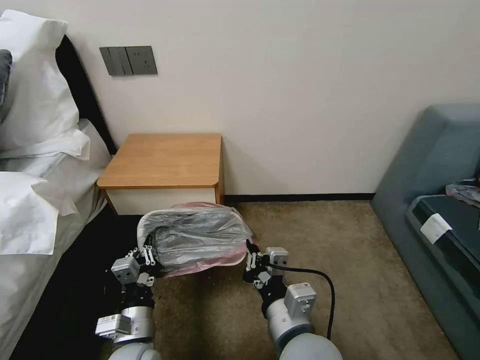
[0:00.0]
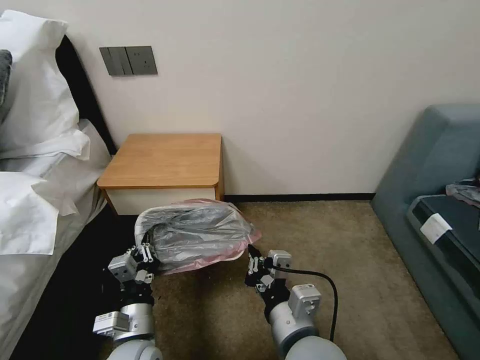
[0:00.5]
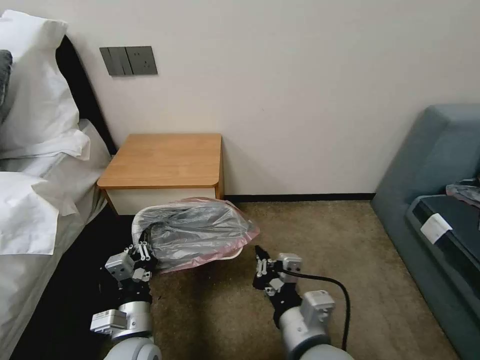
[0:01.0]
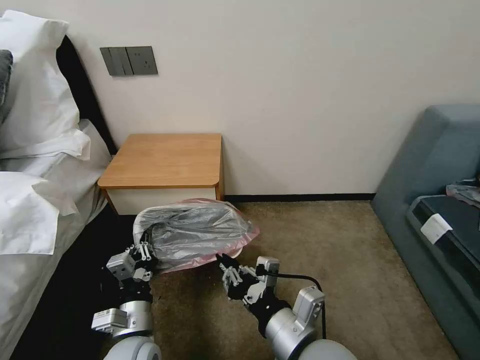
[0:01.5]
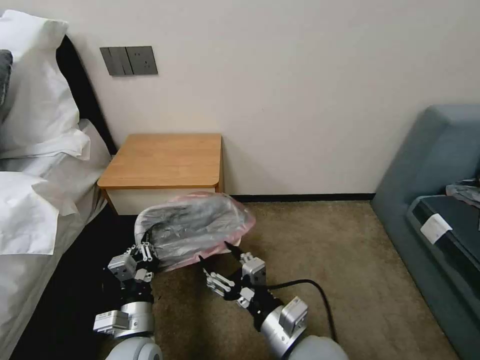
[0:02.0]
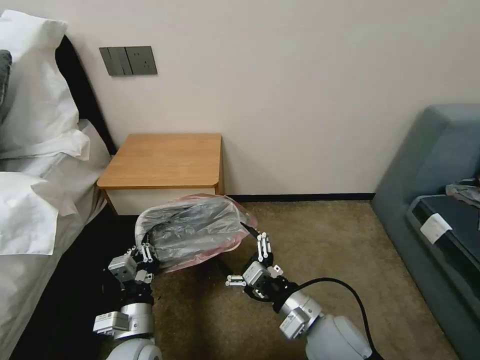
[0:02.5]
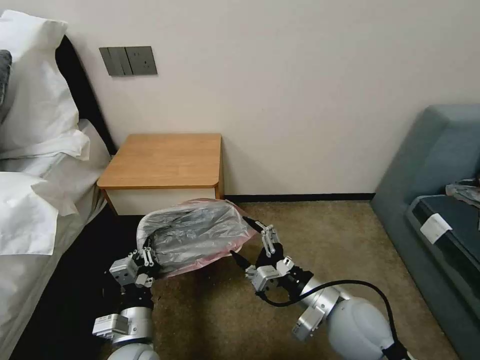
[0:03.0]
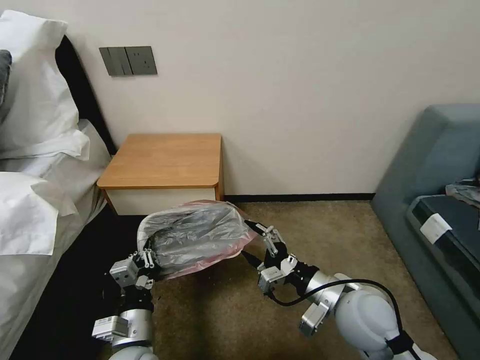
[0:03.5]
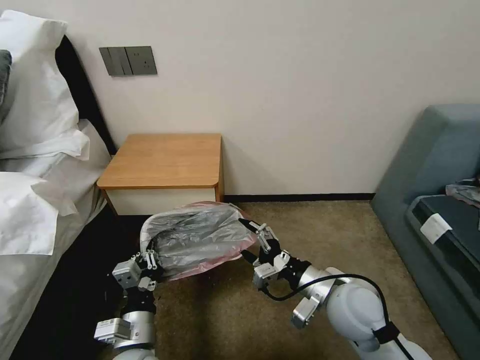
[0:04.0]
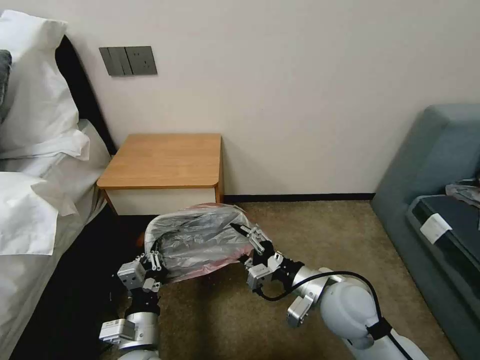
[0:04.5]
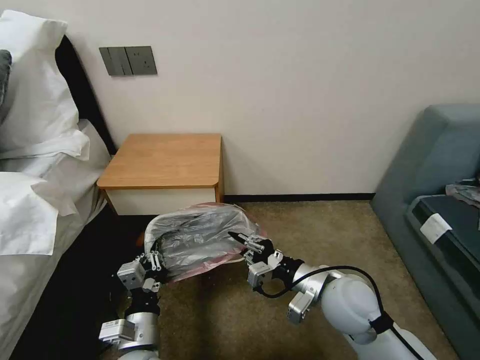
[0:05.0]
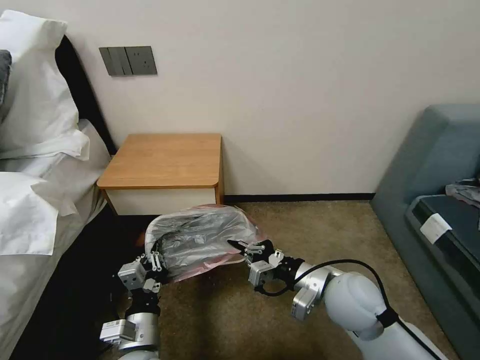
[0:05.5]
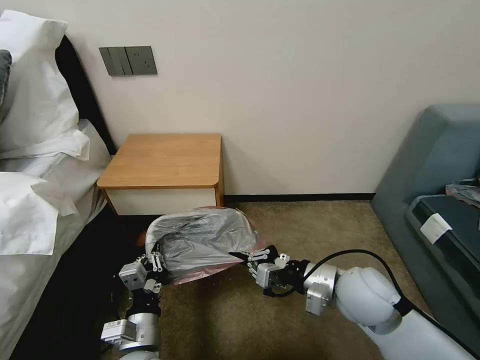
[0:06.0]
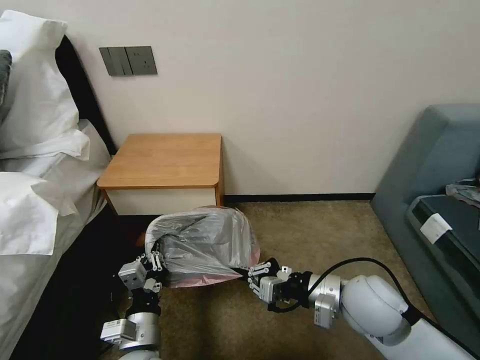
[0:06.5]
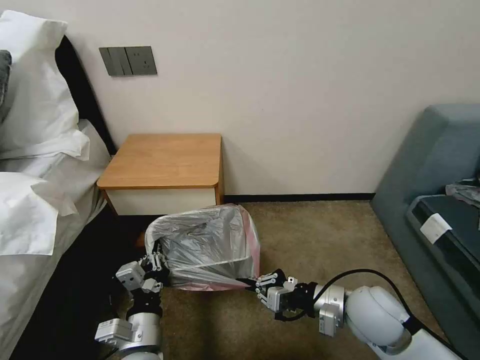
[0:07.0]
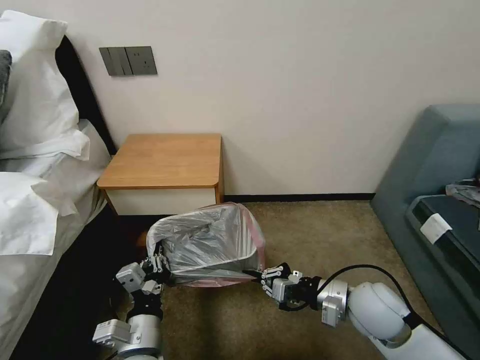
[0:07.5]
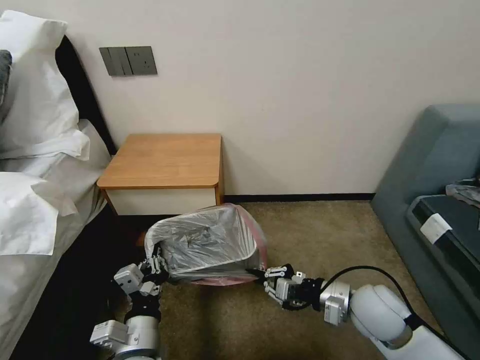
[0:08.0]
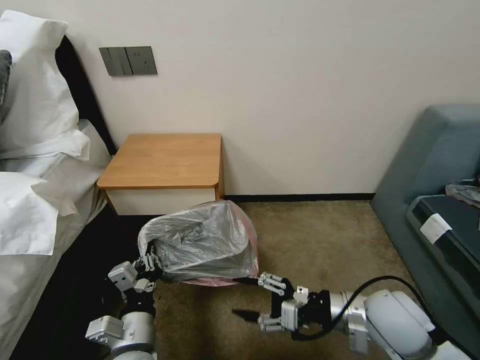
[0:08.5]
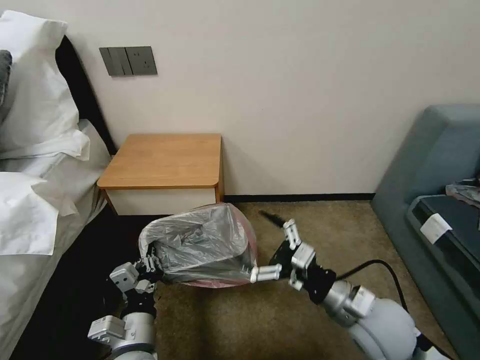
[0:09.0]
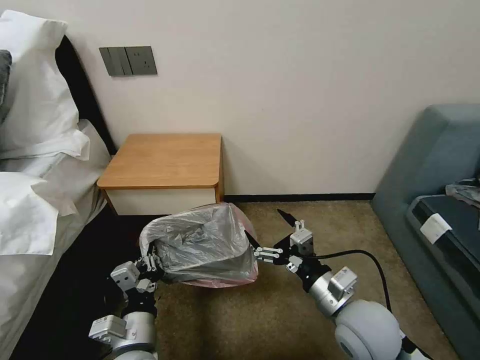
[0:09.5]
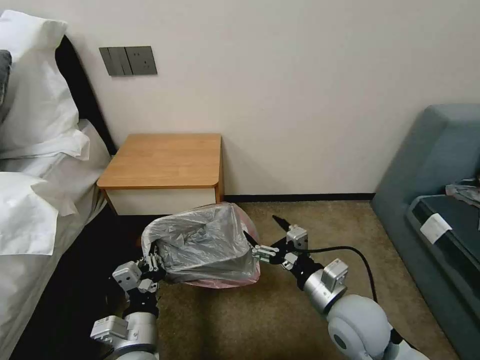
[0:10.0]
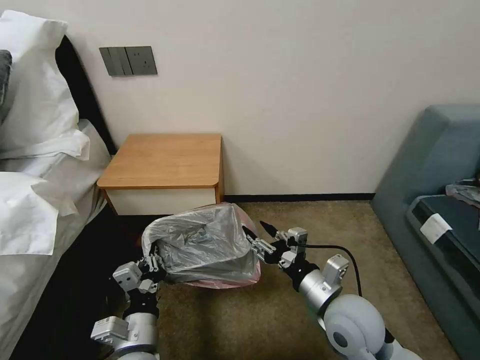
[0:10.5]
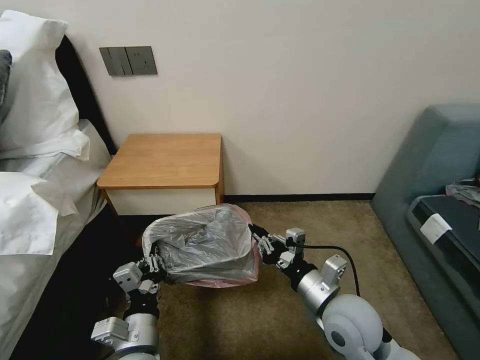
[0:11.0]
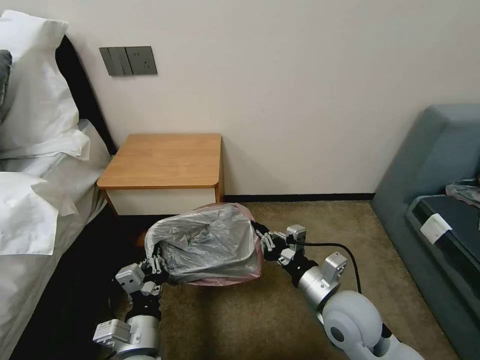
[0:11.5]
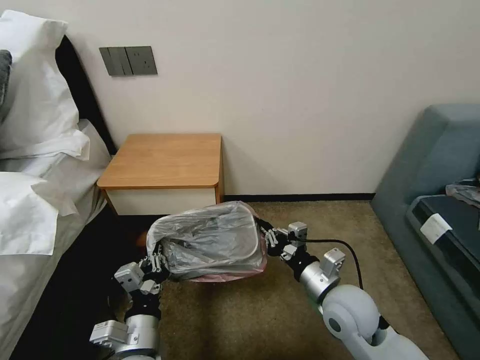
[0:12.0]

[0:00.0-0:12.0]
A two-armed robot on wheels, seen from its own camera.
Task of the whole recording: Pick up the garbage bag from the table and place it over the trash can.
0:00.0 to 0:02.0: The right gripper opens up.
0:02.0 to 0:04.0: The right gripper travels to the right and forward by approximately 15 cm.
0:04.0 to 0:06.0: The right gripper closes up.
0:06.0 to 0:08.0: The right gripper goes approximately 5 cm downward.
0:08.0 to 0:10.0: The right gripper goes about 5 cm to the left, and opens.
0:10.0 to 0:12.0: The right gripper closes up.

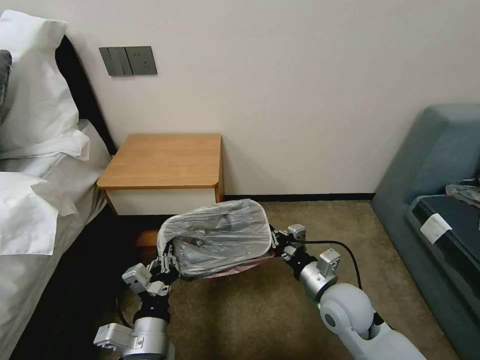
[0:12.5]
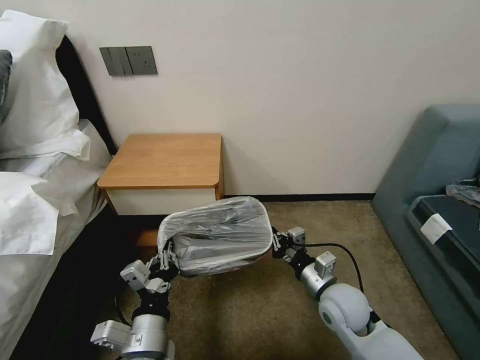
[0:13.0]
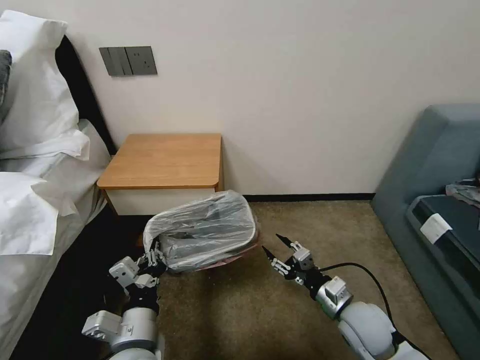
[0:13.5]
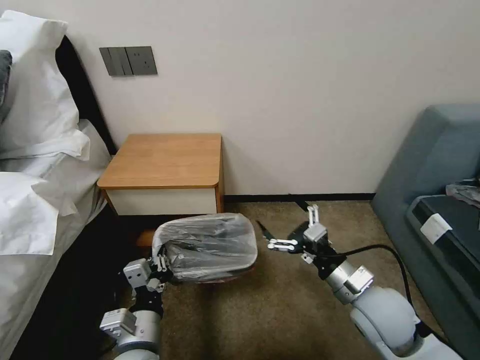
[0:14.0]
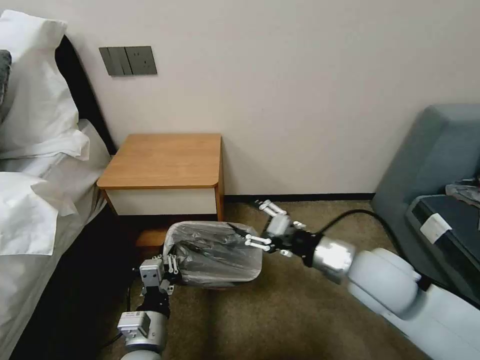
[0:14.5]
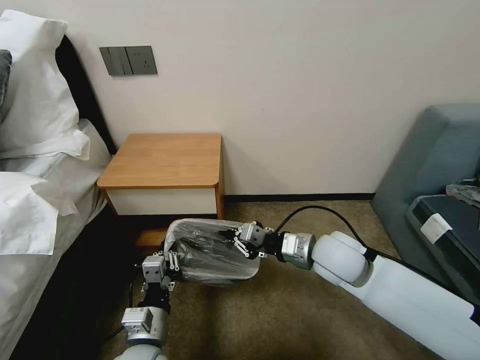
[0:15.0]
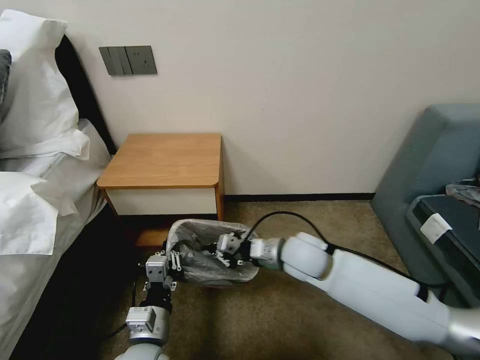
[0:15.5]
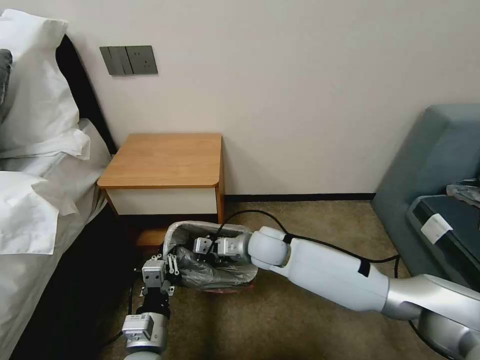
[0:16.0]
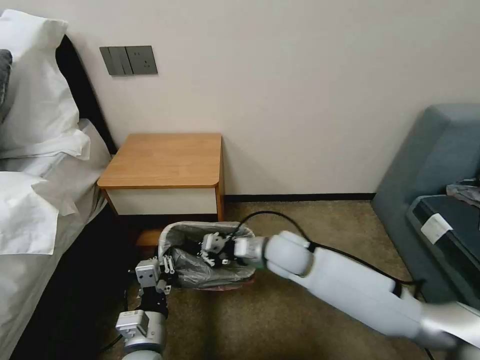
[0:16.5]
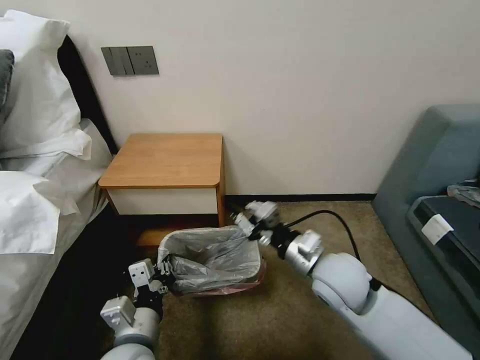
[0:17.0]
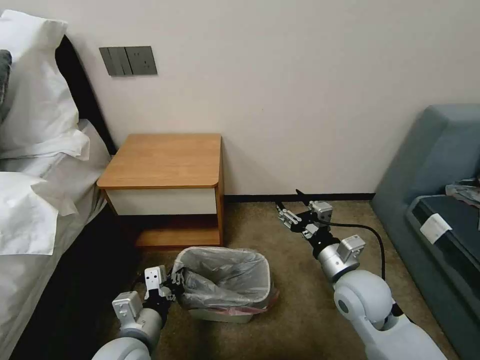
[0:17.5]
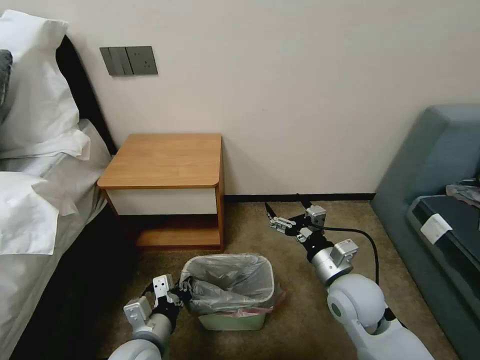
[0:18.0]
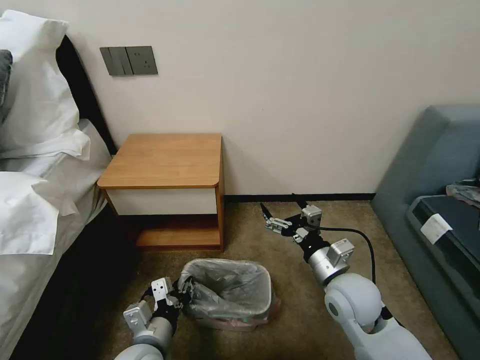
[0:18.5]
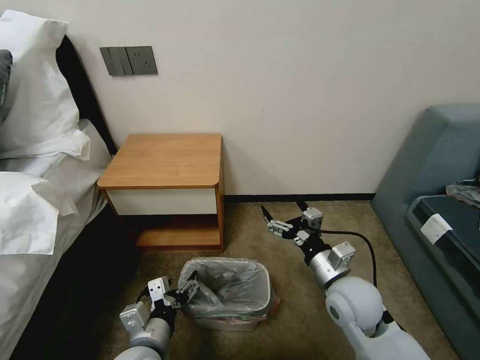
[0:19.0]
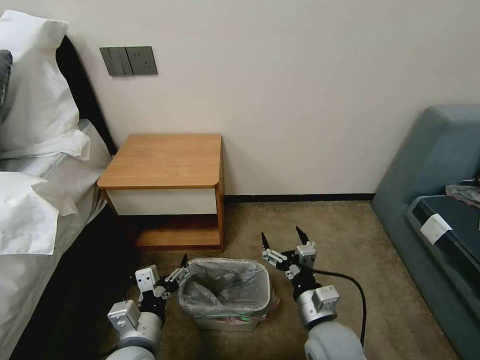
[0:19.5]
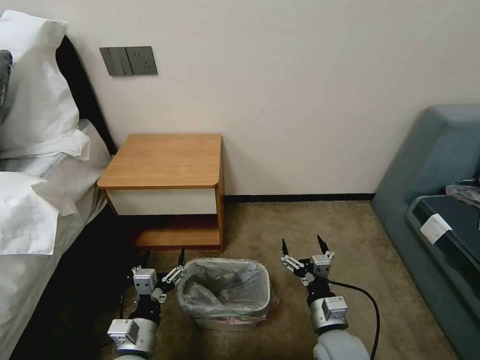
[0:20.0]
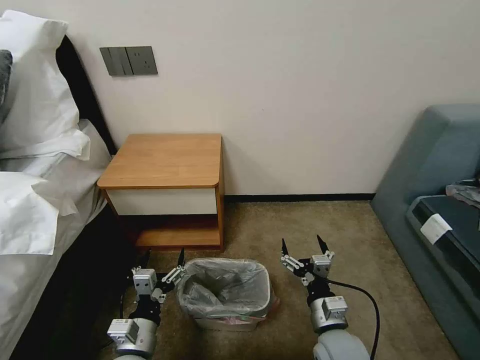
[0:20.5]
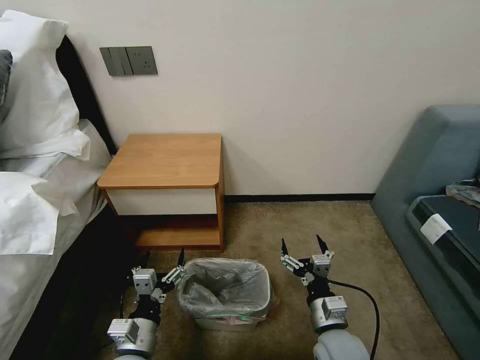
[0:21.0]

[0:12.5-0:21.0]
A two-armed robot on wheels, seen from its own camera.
Task of the whole recording: Pick up the garbage bag from the table and place it over the trash can.
0:12.5 to 0:14.5: The right gripper heads upward, covering about 15 cm, and opens up.
0:14.5 to 0:16.5: The right gripper heads to the left, forward and downward, covering approximately 20 cm, and closes.
0:16.5 to 0:19.0: The left gripper opens; the right gripper is displaced to the right and backward by some 15 cm, and opens up.
0:19.0 to 0:21.0: The right gripper is displaced downward and backward by roughly 10 cm.

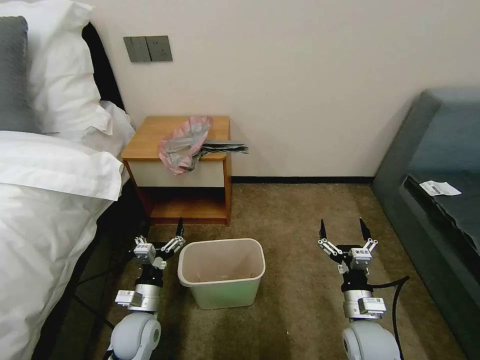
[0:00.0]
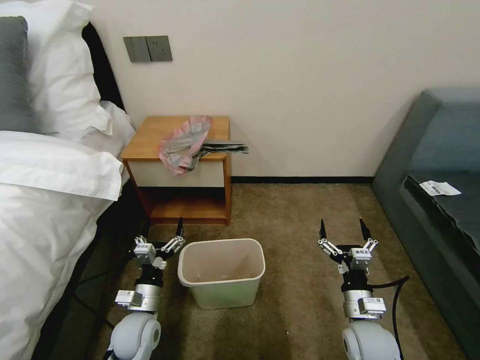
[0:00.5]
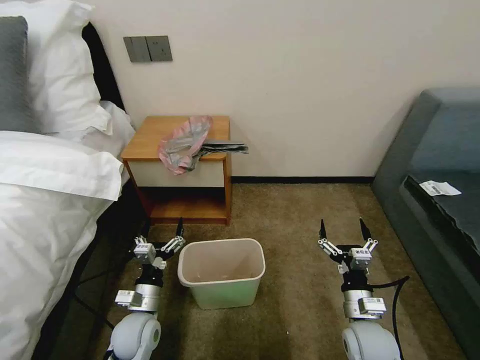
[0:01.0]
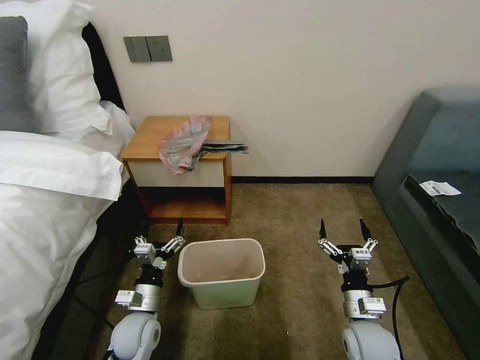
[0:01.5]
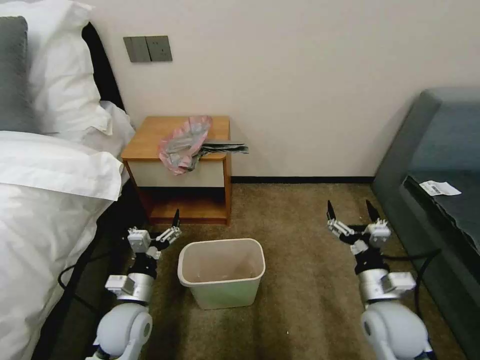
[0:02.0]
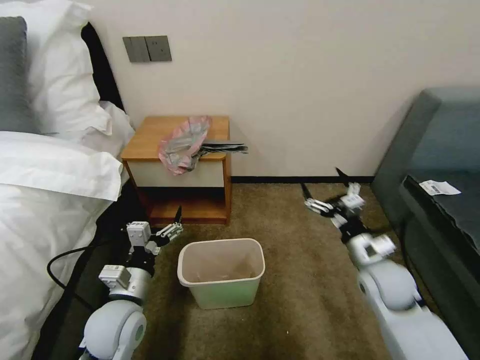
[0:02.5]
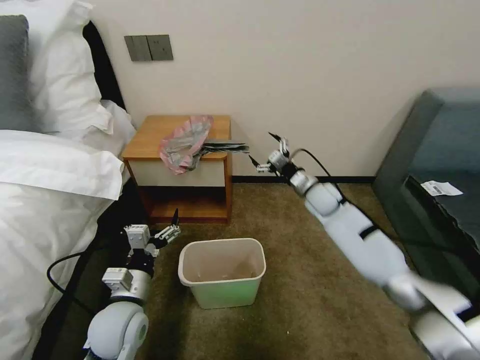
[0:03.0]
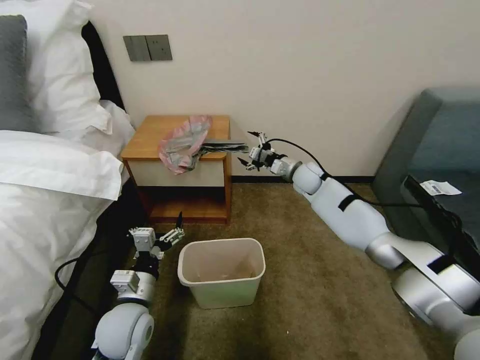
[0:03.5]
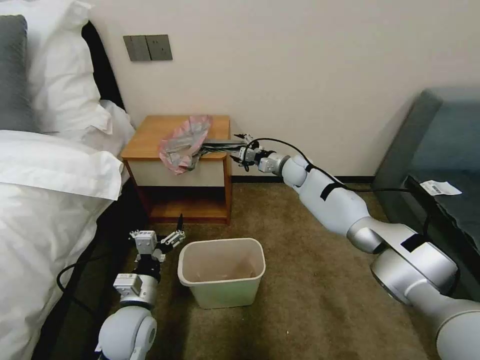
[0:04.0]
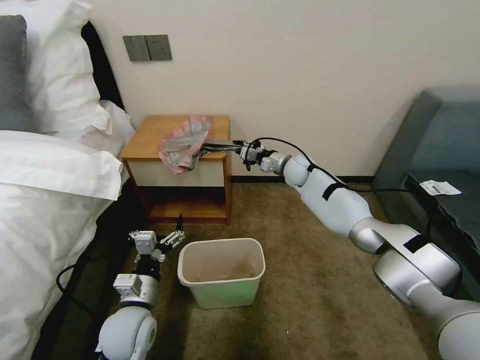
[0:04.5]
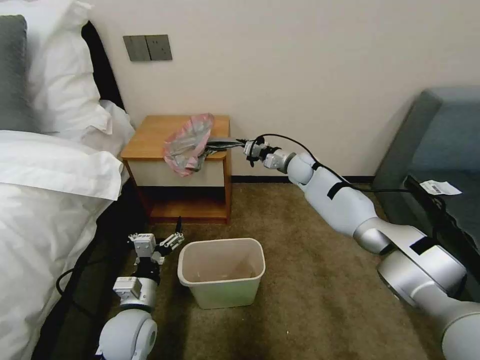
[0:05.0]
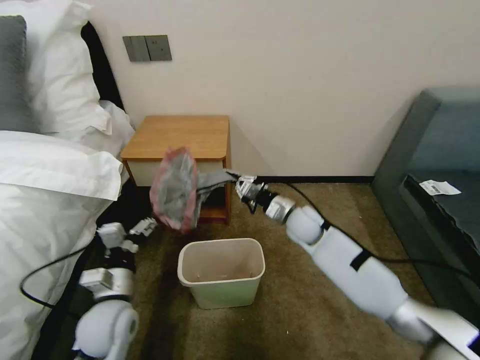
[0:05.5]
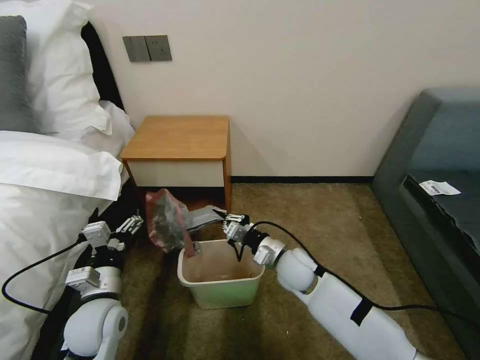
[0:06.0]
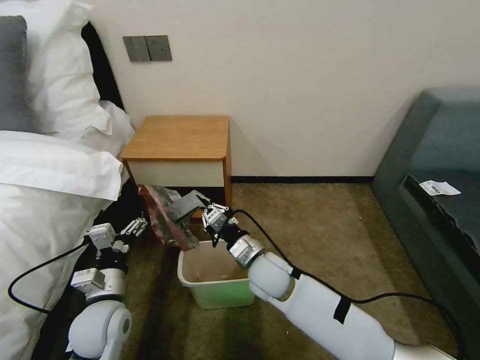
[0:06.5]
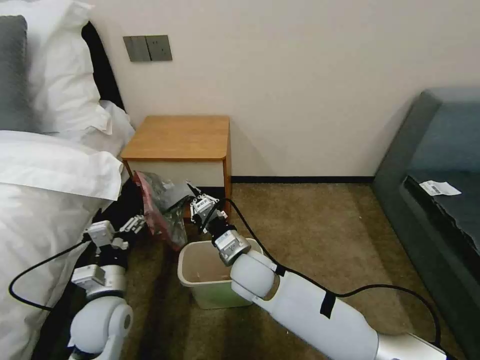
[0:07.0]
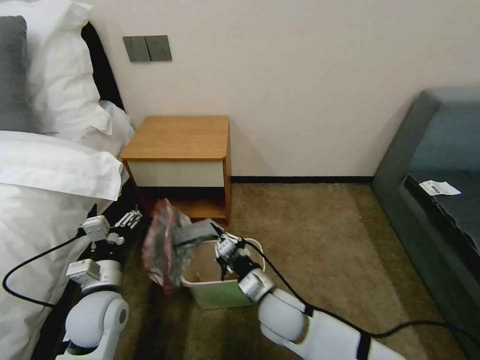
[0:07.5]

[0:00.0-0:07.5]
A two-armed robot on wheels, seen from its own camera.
Task of the whole recording: Pick up the garbage bag from the table and place it over the trash can.
0:02.0 to 0:04.0: The right gripper is displaced forward by roughly 40 cm.
0:04.0 to 0:05.5: The right gripper shifts approximately 15 cm backward, and closes its fingers.
0:05.5 to 0:07.5: The right gripper goes about 20 cm backward.
